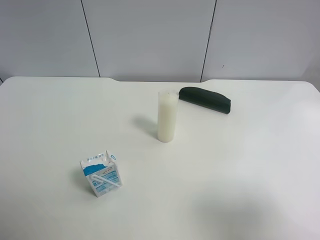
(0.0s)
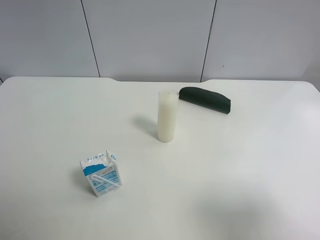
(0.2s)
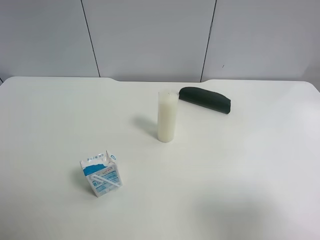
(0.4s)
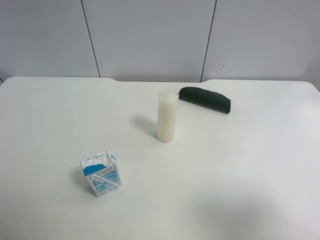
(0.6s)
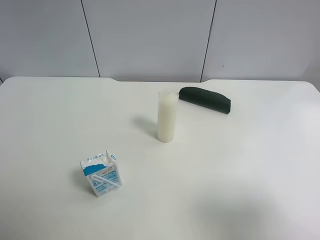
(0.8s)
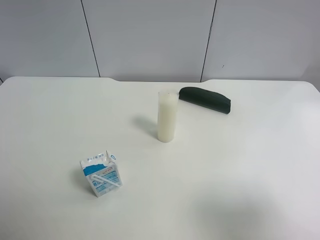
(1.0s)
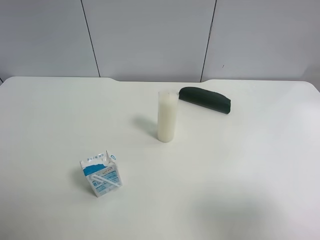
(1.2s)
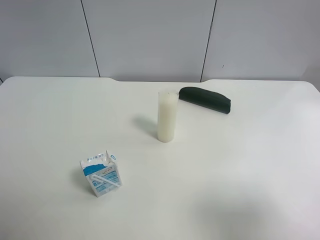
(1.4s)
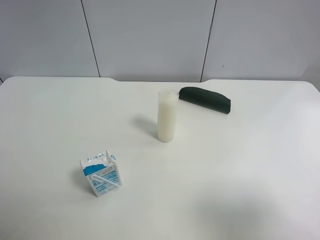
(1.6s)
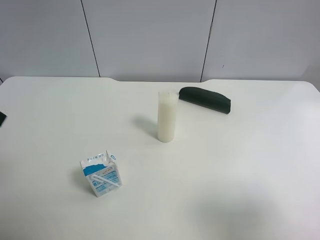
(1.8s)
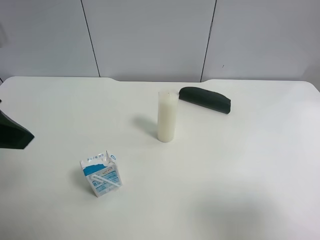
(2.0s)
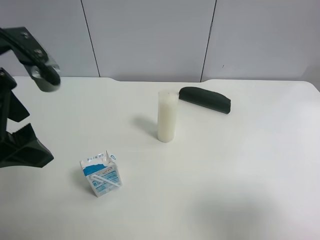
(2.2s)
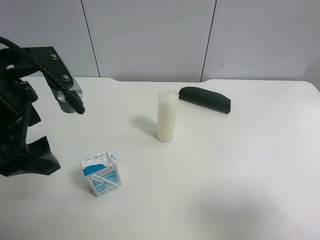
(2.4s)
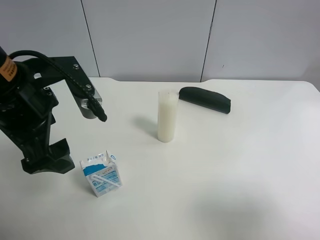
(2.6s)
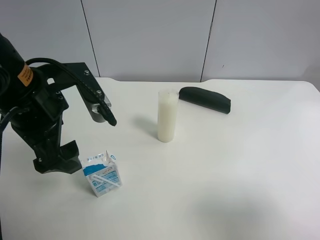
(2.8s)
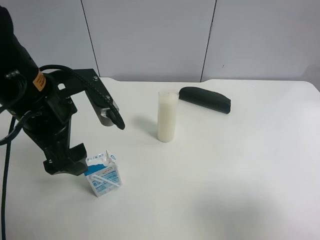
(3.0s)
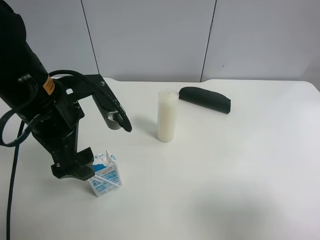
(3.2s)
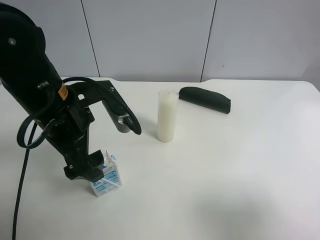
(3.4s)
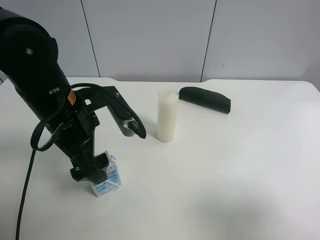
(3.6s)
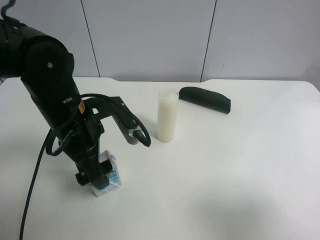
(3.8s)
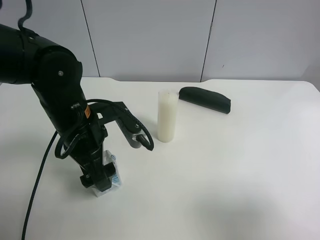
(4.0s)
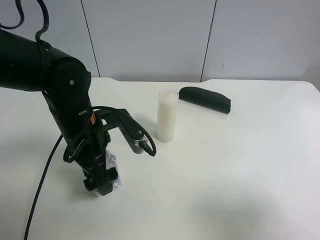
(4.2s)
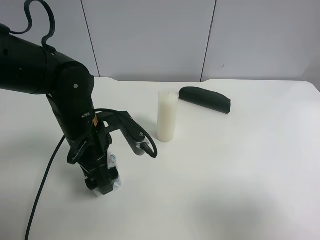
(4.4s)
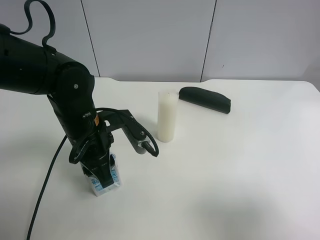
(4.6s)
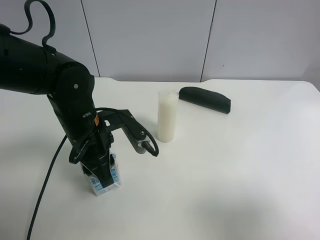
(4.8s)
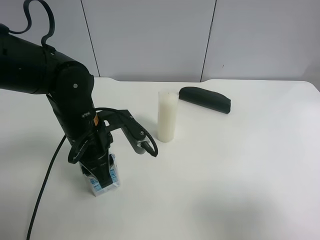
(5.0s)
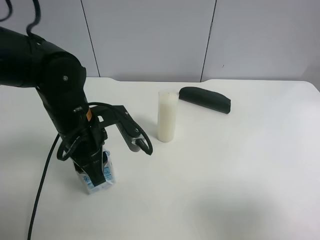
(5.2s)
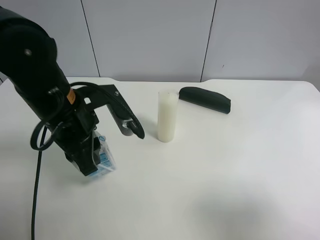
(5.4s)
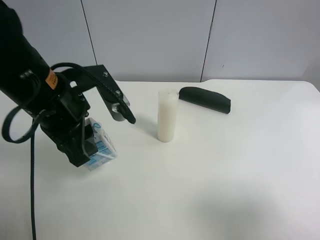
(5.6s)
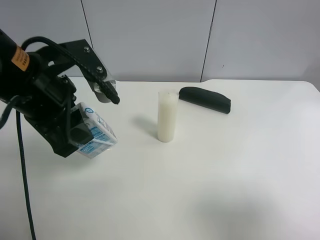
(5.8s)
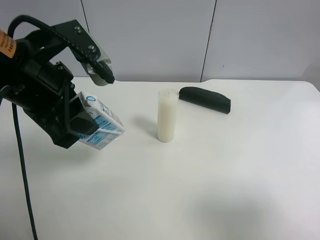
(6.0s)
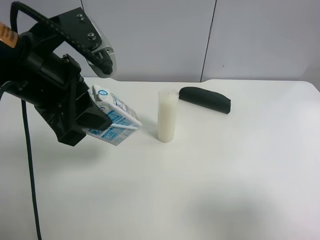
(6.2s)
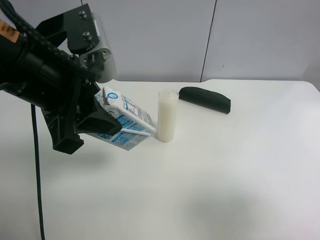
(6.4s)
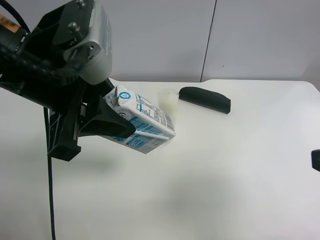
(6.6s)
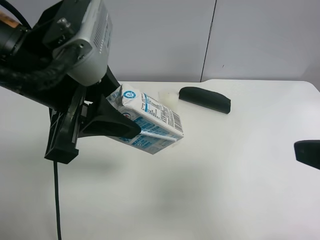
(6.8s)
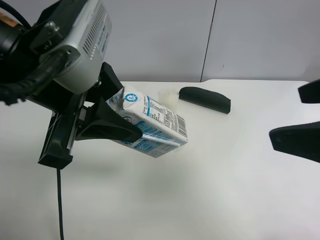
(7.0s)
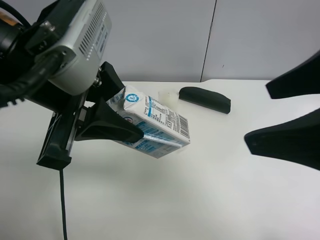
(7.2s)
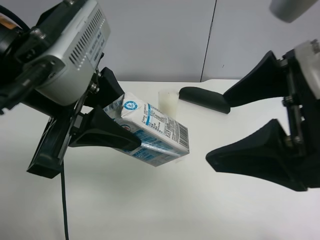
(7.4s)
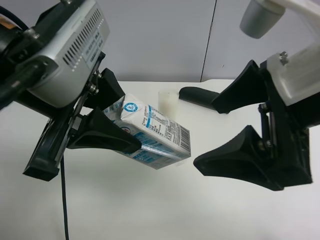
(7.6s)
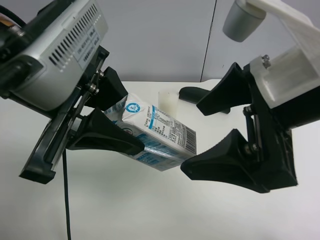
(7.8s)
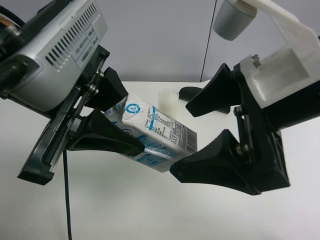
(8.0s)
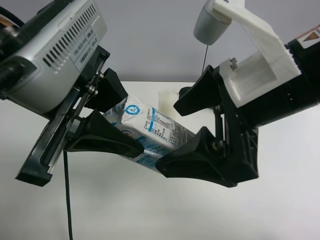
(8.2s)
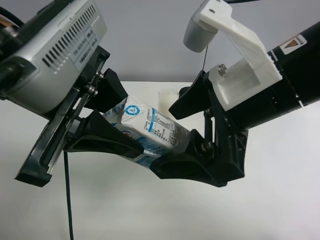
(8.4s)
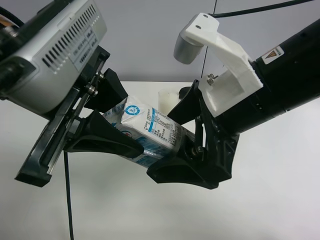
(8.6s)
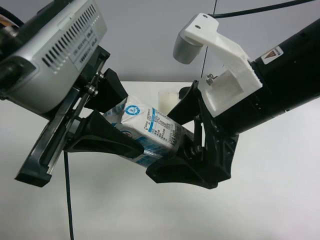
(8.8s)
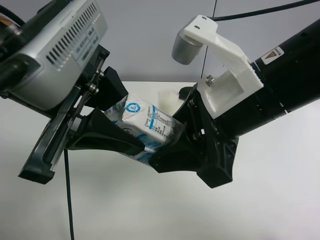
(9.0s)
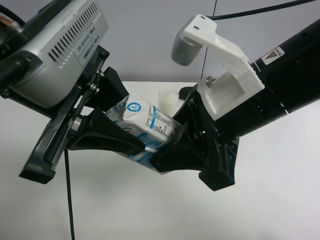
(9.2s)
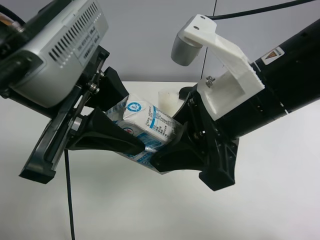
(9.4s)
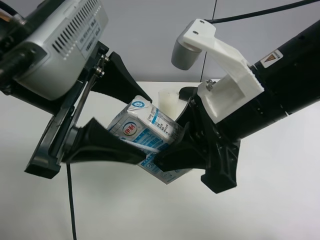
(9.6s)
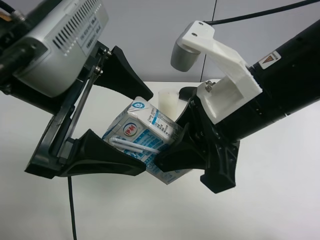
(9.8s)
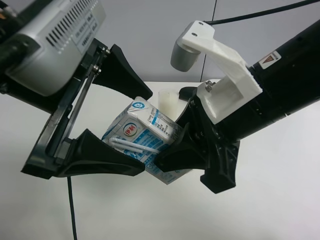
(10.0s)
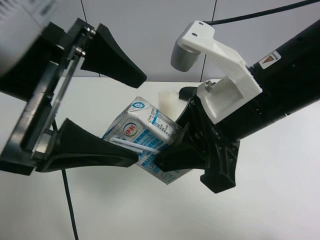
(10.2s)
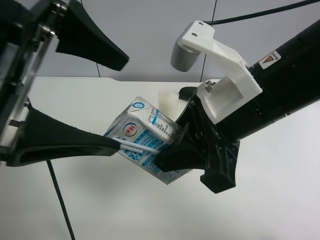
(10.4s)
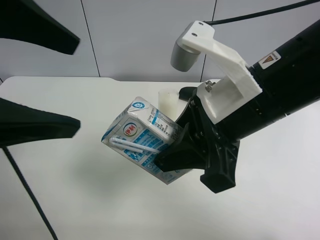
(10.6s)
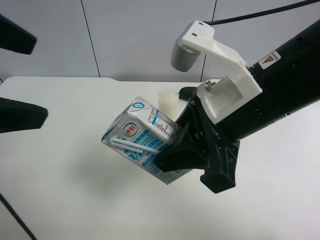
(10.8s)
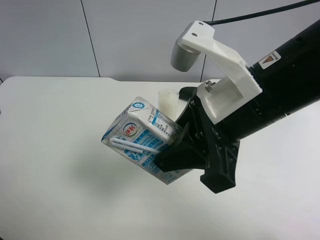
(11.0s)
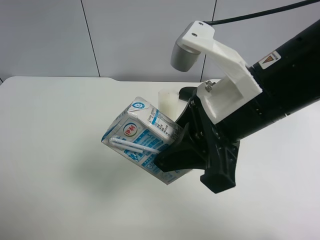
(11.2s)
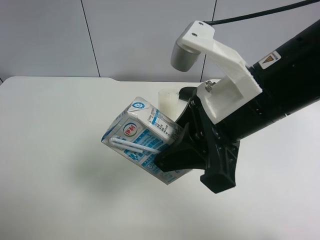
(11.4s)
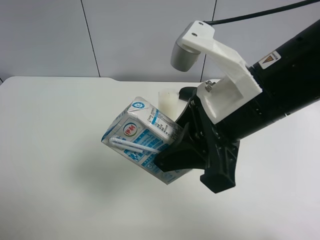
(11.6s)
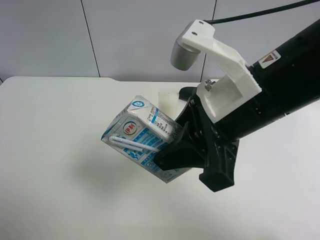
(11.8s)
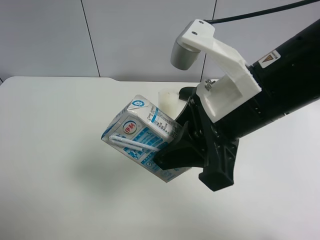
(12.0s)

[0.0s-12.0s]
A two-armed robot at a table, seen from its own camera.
Task of the whole recording: use the left gripper to pick up the item and transfer it from the left gripper to the right gripper.
1.6s to 3.0s: The left gripper moves to the right, downward and forward, about 20 cm.
3.0s to 4.4s: The left gripper is displaced downward by about 10 cm.
4.4s to 6.0s: The left gripper shifts some 15 cm upward, and closes up.
6.0s to 7.6s: The right gripper travels to the left and forward by about 20 cm.
7.6s to 9.0s: The right gripper moves some 5 cm, and closes its fingers.
9.0s to 10.4s: The left gripper changes place by some 5 cm, and opens its fingers.
10.4s to 12.0s: The left gripper heads to the left, backward and downward, covering approximately 25 cm.

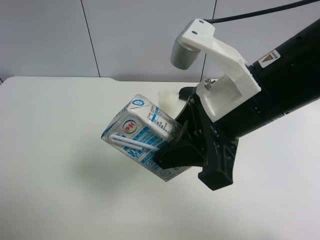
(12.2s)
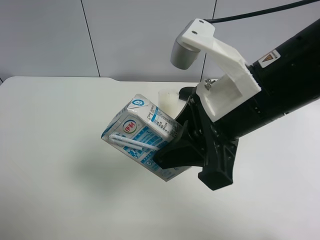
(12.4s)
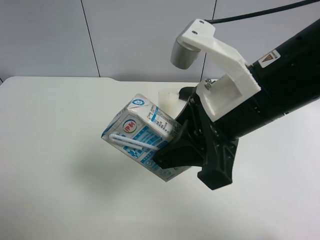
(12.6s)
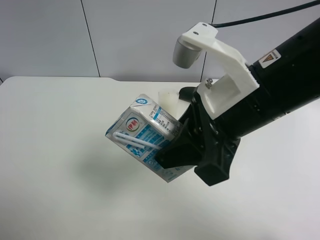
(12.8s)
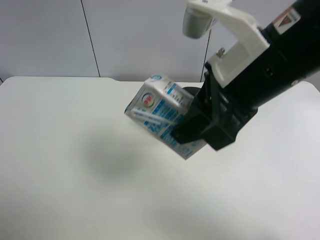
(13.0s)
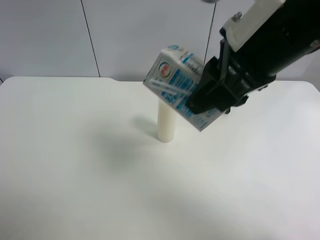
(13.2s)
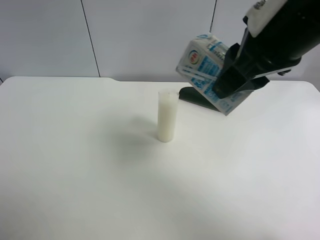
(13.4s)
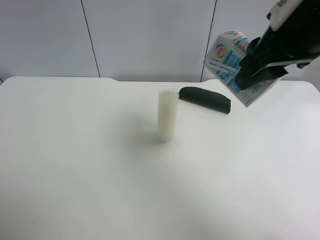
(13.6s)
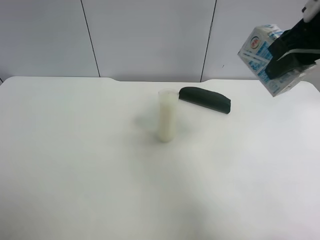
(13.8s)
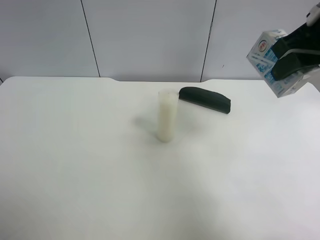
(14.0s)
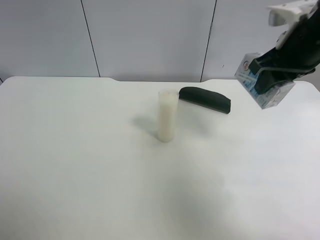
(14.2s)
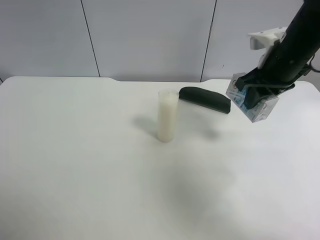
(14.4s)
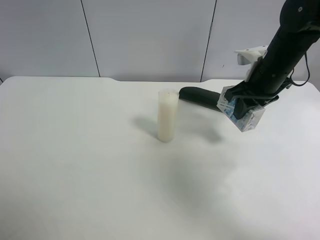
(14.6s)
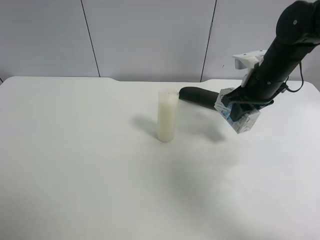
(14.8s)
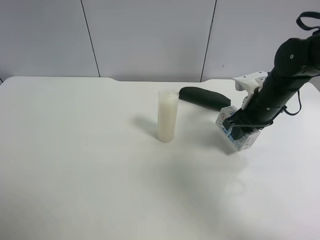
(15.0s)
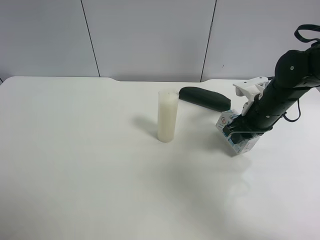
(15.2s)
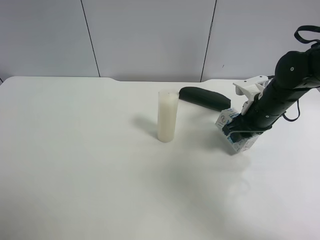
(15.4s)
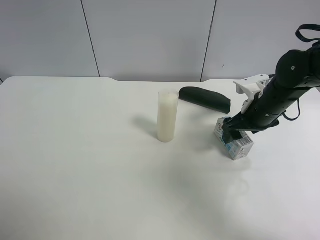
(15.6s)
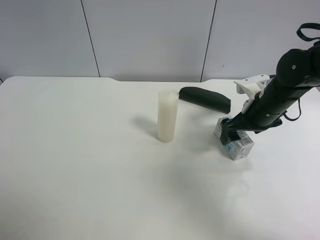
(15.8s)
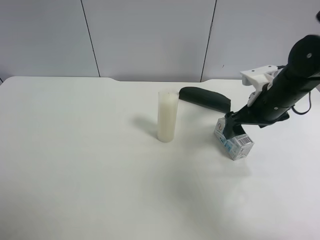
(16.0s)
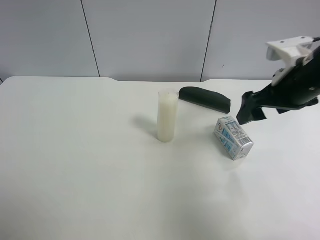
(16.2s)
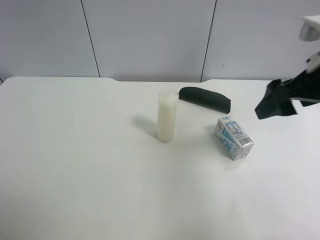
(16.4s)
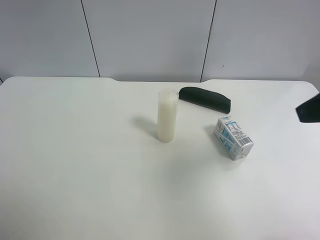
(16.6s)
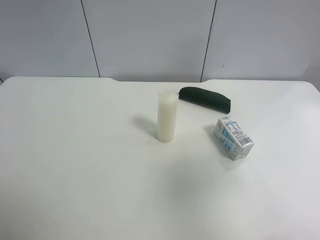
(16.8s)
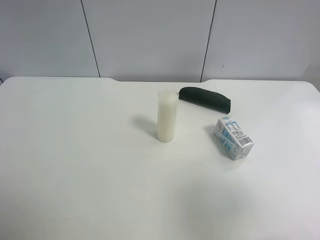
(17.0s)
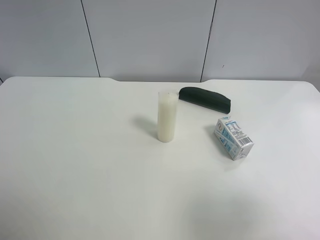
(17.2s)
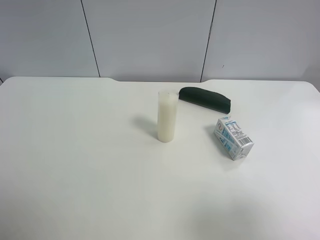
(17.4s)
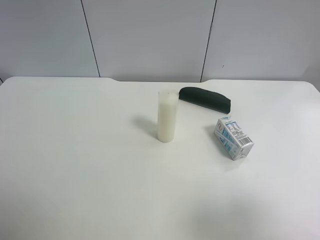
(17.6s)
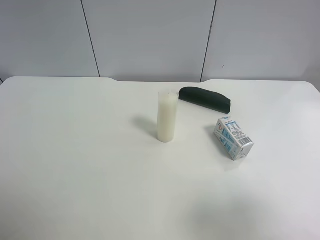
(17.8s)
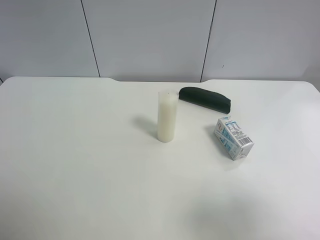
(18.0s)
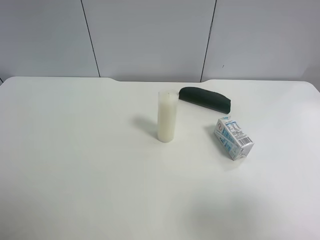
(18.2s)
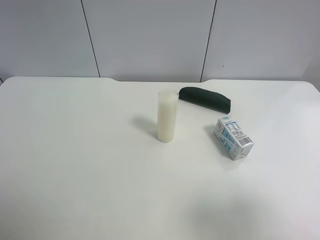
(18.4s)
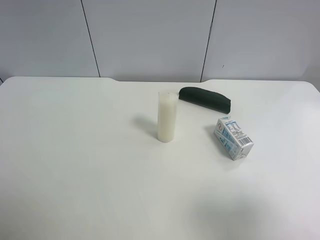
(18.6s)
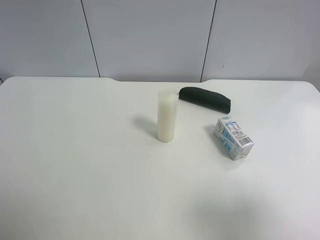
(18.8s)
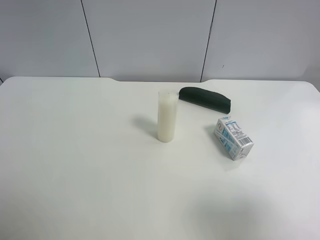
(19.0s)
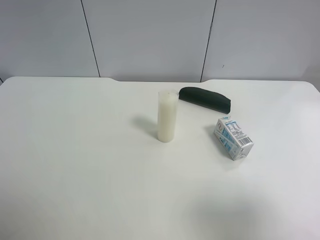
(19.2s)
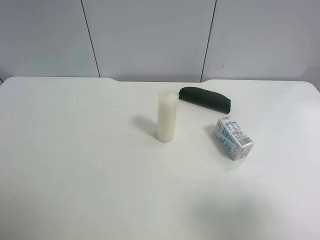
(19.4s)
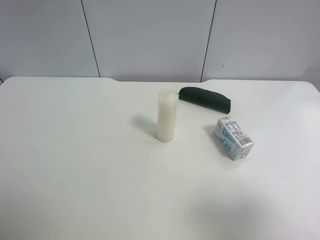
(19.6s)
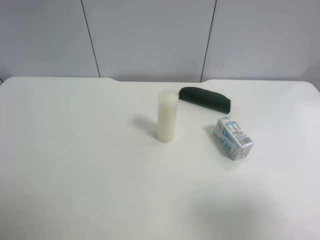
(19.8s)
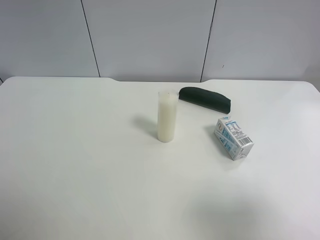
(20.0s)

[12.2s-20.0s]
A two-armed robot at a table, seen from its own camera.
Task of the whole recording: use the left gripper to pick up the item and transfer it from the left gripper to the right gripper.
12.2s to 13.8s: The right gripper shifts some 15 cm to the right, forward and upward.
13.8s to 15.4s: The right gripper is displaced downward by about 20 cm.
15.4s to 16.8s: The right gripper goes about 30 cm backward and upward, and opens its fingers.
16.8s to 18.4s: The right gripper travels backward and downward by approximately 10 cm.
